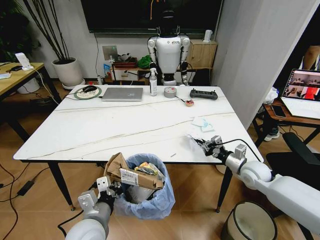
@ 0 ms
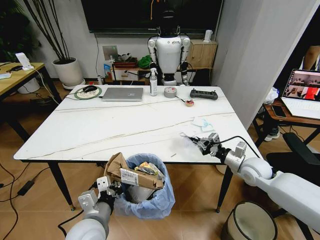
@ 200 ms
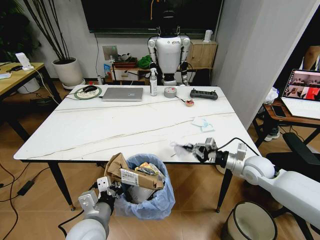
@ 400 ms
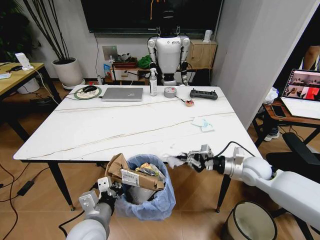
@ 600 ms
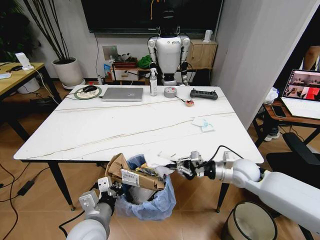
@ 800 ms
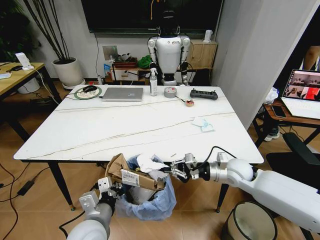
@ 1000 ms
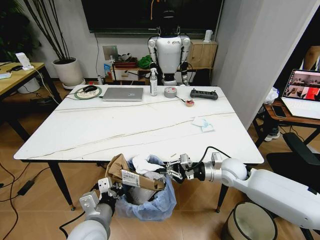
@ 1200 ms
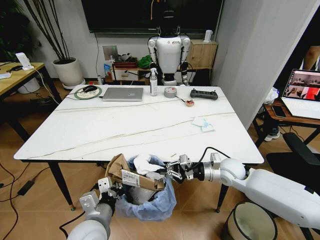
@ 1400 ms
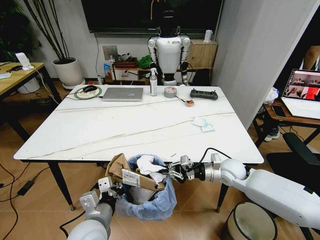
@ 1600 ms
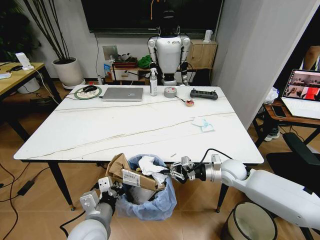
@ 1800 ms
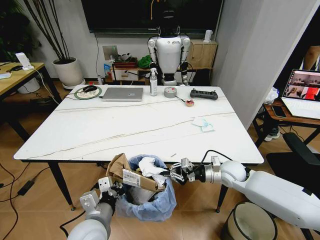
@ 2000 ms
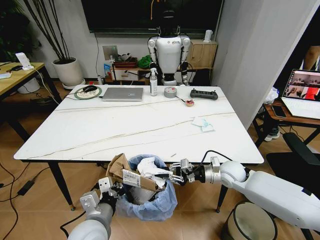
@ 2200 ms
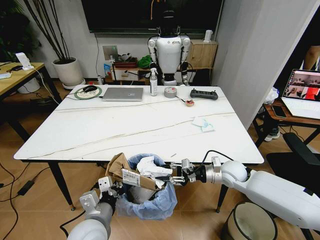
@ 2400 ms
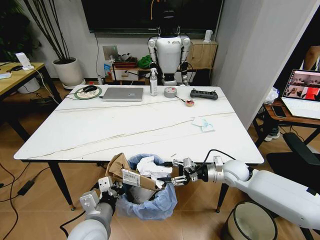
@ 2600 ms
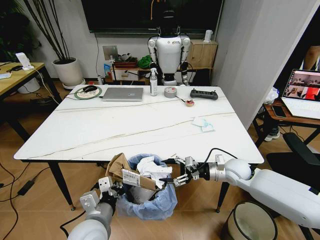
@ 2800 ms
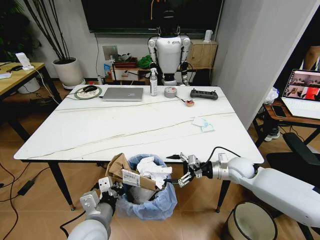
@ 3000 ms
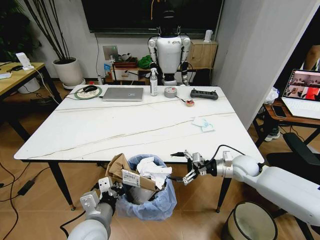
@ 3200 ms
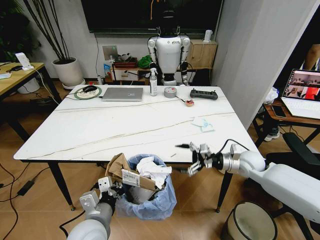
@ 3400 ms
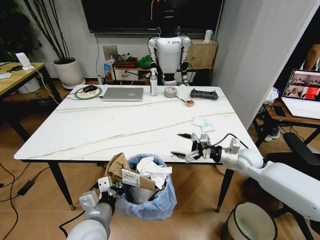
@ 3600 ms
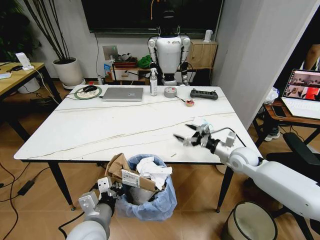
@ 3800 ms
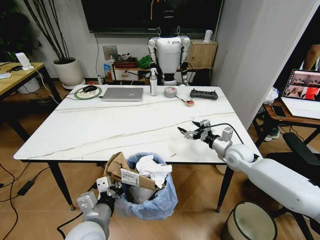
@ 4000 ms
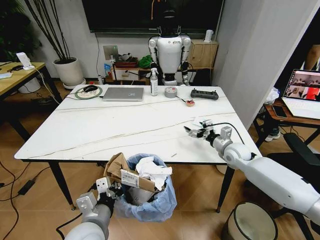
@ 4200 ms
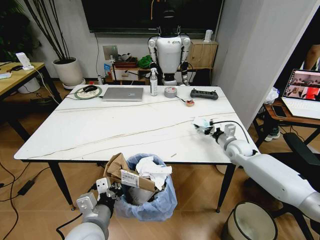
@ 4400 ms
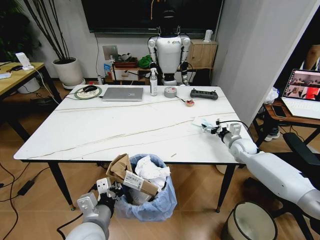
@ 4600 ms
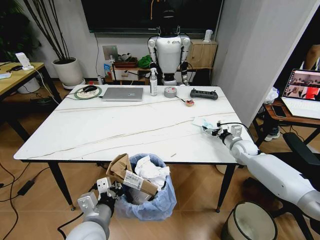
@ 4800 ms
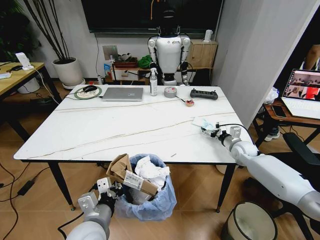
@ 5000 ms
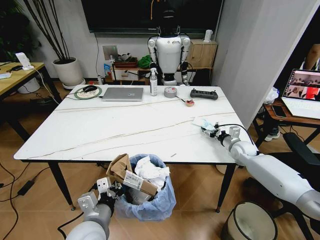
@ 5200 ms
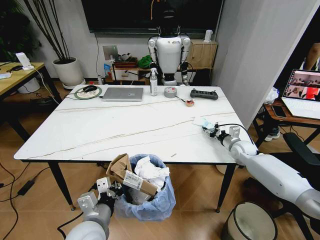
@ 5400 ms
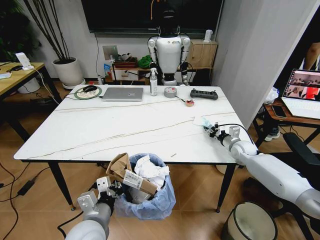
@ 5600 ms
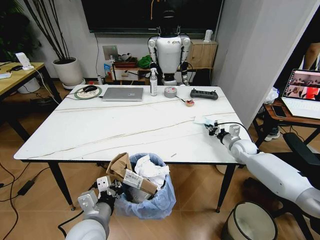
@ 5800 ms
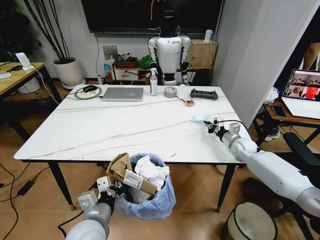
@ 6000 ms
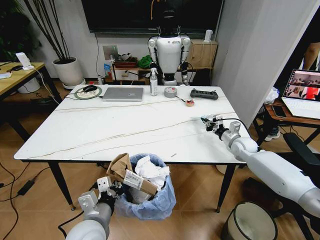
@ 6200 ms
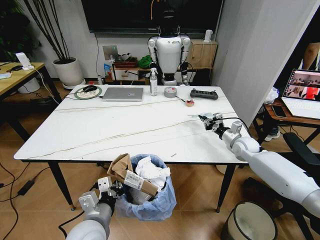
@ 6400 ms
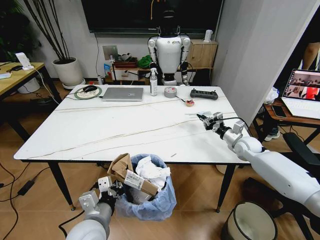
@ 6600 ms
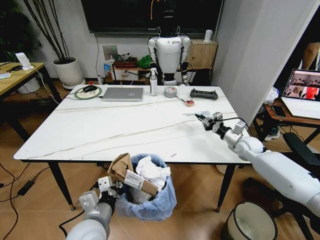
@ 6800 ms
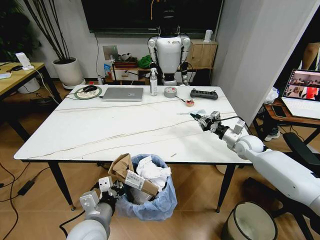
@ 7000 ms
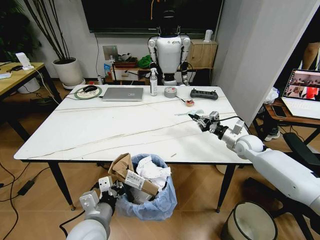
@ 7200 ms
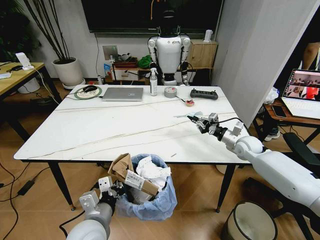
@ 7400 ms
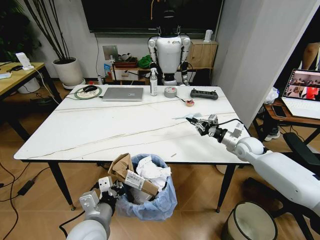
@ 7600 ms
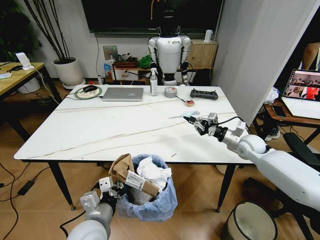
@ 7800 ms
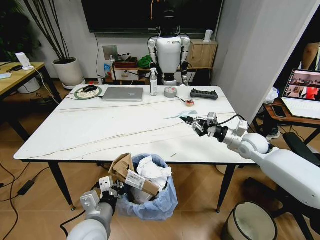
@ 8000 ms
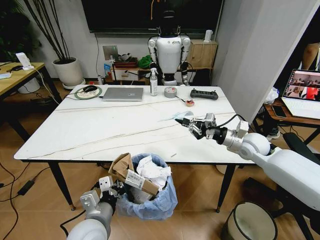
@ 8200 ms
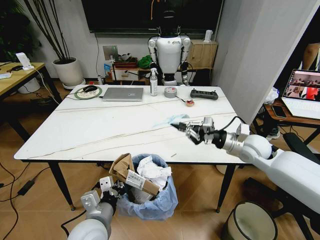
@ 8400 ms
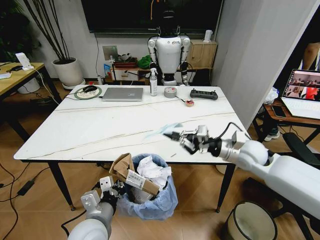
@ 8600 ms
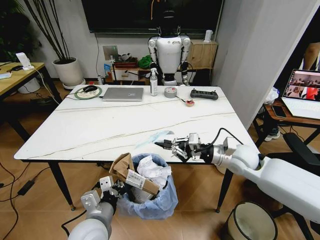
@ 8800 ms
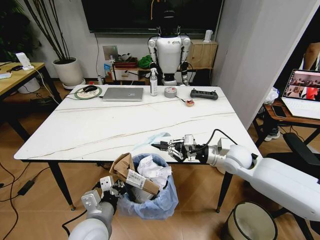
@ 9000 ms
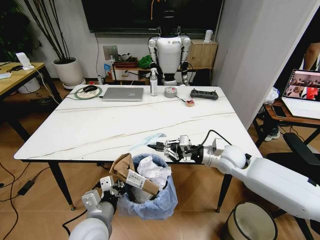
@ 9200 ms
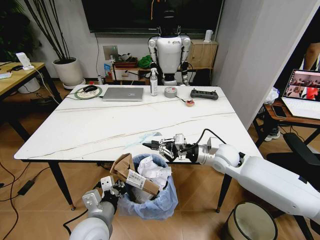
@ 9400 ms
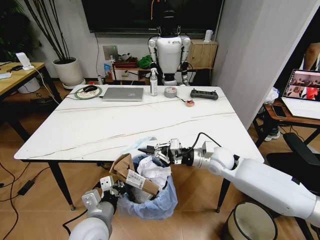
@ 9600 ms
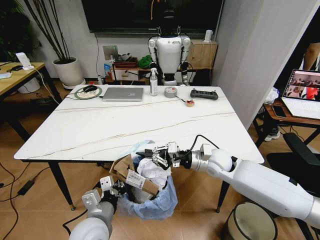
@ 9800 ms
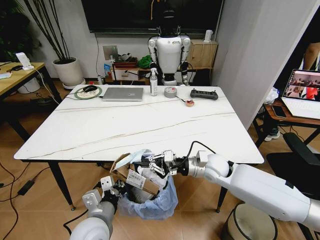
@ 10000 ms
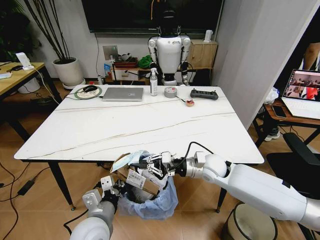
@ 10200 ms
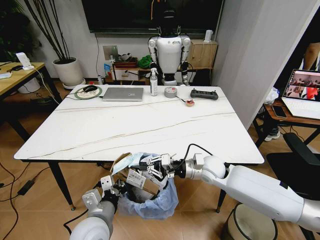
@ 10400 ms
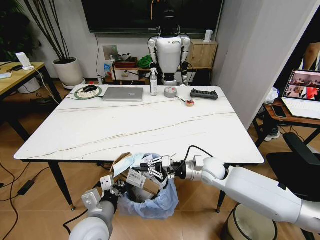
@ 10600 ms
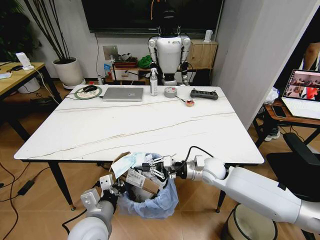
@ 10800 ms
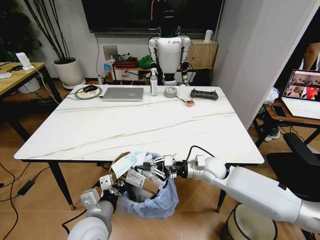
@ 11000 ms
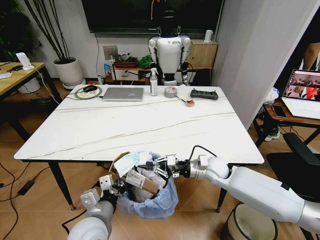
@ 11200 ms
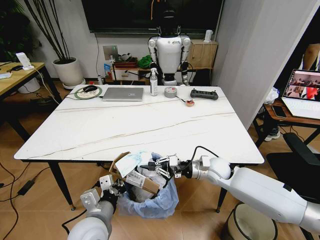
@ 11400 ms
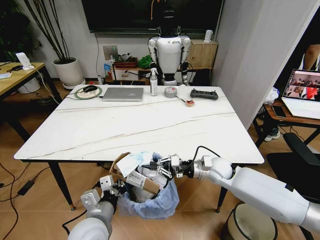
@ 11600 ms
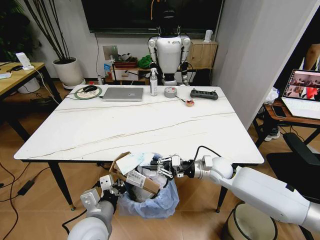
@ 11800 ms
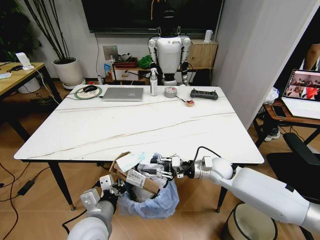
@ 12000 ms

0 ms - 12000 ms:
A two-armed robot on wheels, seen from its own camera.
Task of the whole recording: Pick up the trash bin and place the trash from the table into it.
0 ms - 1600 ms: The right gripper is displaced to the left by about 10 cm.
1600 ms - 3000 ms: The right gripper opens its fingers.
3000 ms - 4400 ms: The right gripper heads forward, covering some 10 cm.
4400 ms - 6000 ms: The right gripper closes its fingers.
7600 ms - 9000 ms: The right gripper shifts some 15 cm to the left, backward and upward.
9000 ms - 10400 ms: The right gripper is displaced to the left and downward by some 10 cm.
10400 ms - 12000 ms: The grippers move only a little.

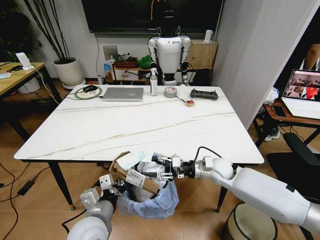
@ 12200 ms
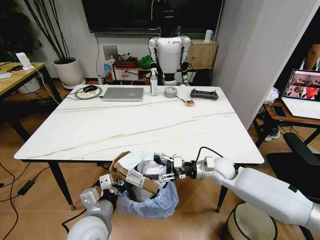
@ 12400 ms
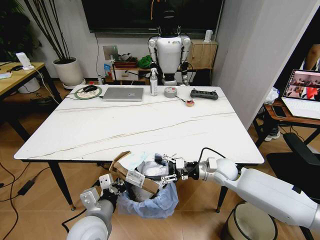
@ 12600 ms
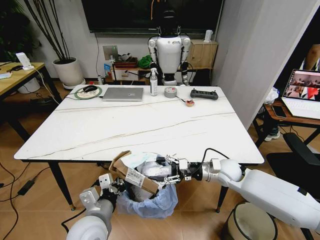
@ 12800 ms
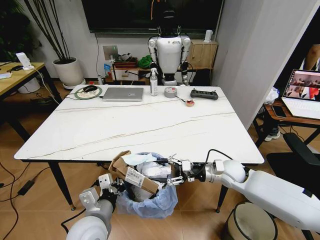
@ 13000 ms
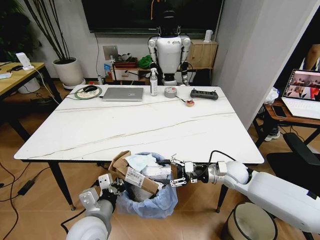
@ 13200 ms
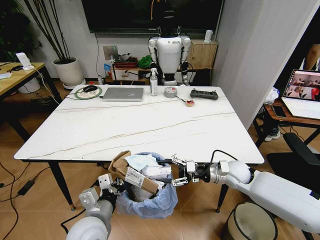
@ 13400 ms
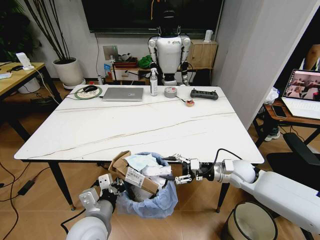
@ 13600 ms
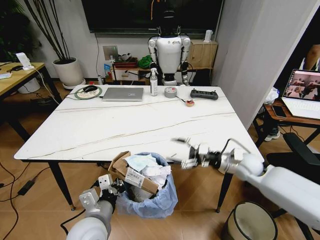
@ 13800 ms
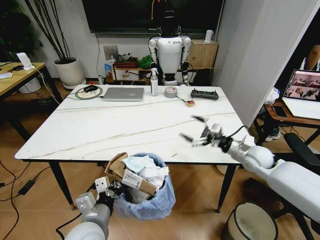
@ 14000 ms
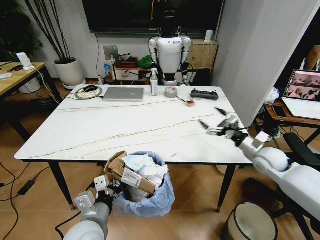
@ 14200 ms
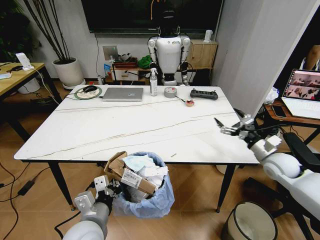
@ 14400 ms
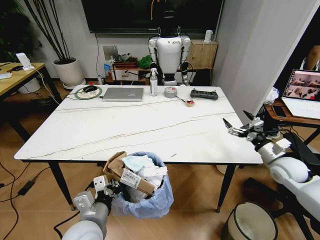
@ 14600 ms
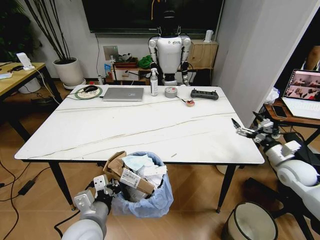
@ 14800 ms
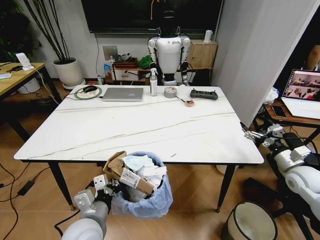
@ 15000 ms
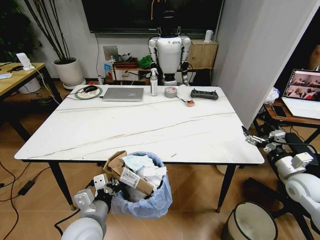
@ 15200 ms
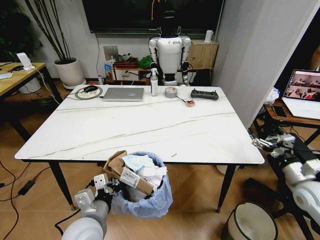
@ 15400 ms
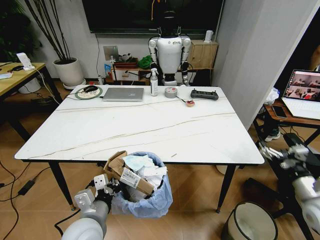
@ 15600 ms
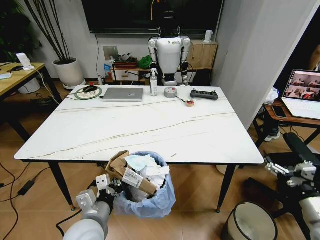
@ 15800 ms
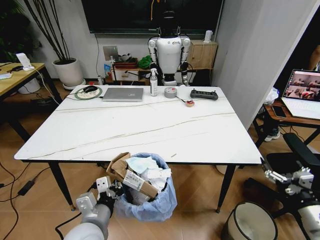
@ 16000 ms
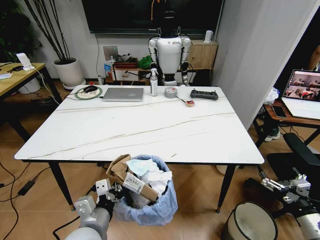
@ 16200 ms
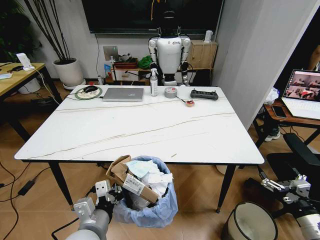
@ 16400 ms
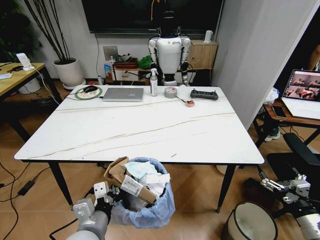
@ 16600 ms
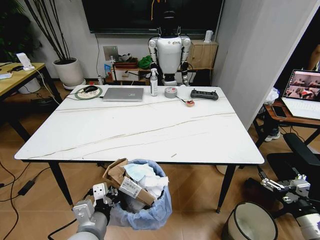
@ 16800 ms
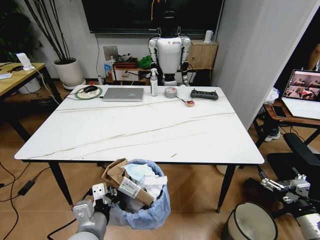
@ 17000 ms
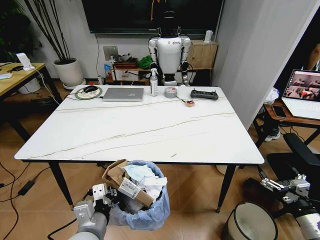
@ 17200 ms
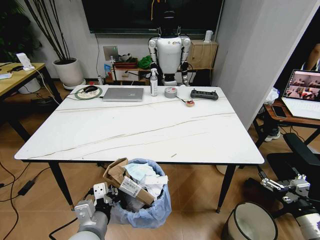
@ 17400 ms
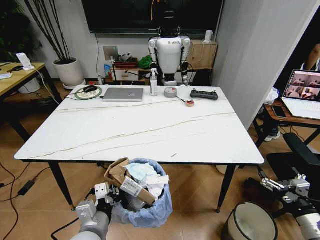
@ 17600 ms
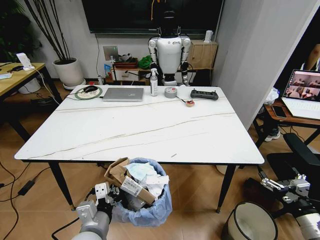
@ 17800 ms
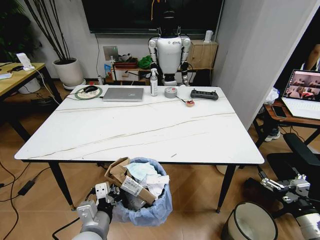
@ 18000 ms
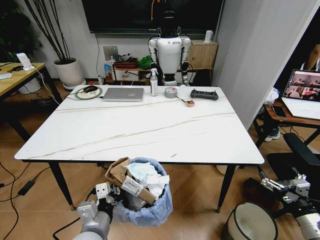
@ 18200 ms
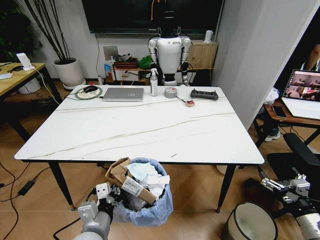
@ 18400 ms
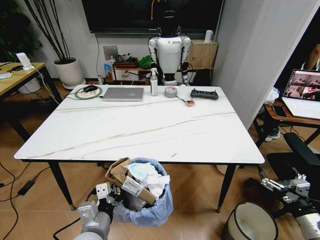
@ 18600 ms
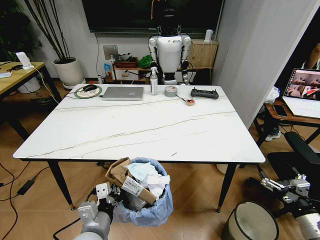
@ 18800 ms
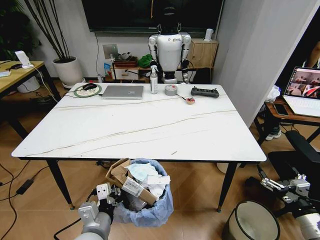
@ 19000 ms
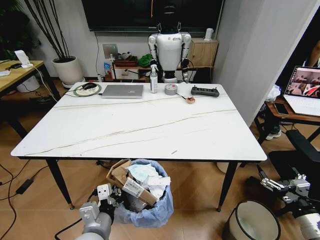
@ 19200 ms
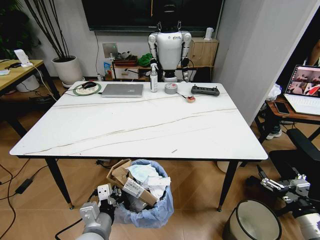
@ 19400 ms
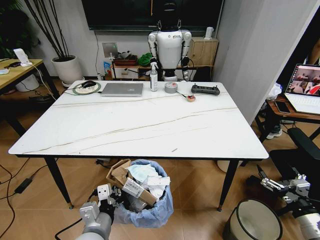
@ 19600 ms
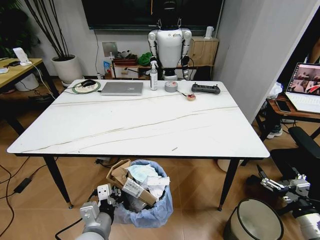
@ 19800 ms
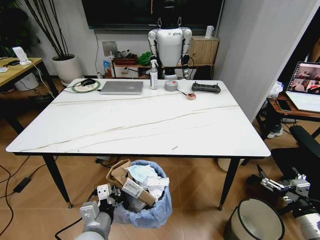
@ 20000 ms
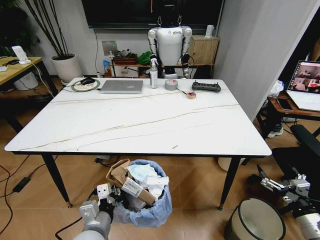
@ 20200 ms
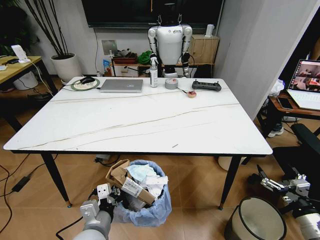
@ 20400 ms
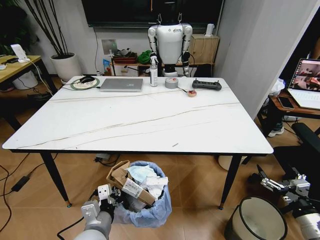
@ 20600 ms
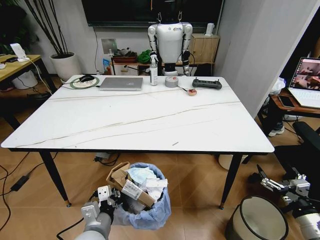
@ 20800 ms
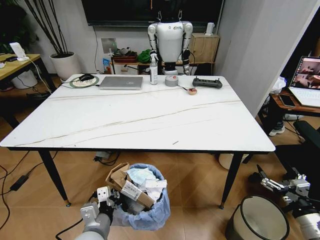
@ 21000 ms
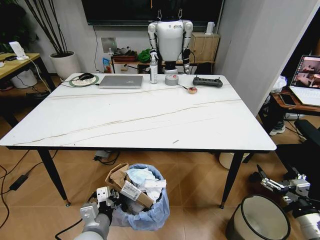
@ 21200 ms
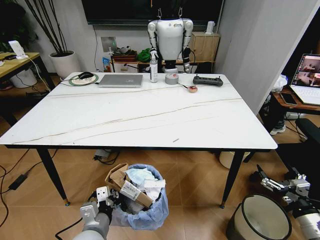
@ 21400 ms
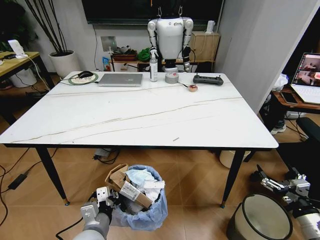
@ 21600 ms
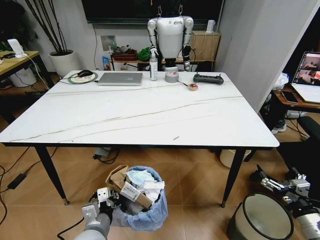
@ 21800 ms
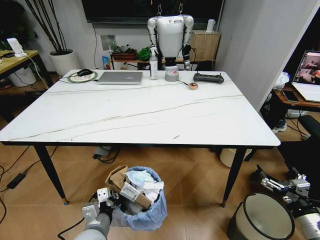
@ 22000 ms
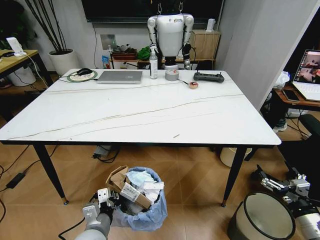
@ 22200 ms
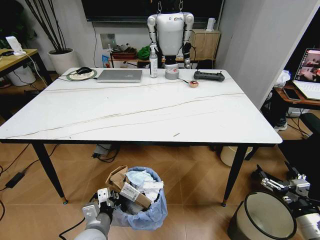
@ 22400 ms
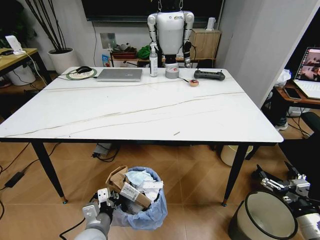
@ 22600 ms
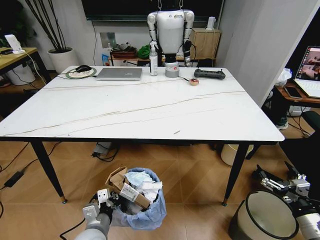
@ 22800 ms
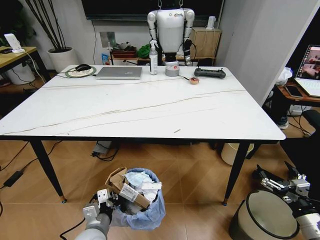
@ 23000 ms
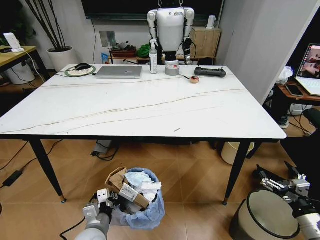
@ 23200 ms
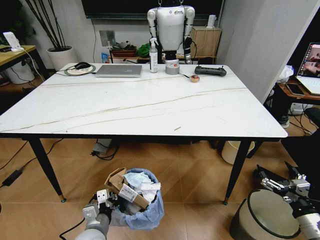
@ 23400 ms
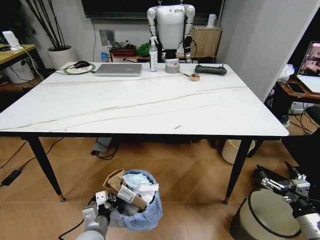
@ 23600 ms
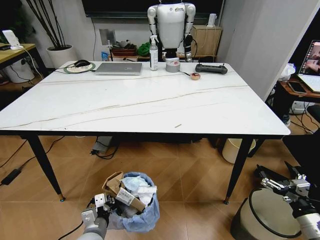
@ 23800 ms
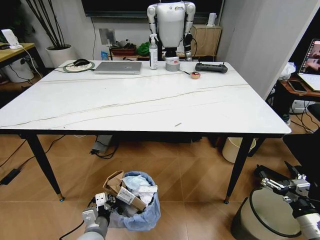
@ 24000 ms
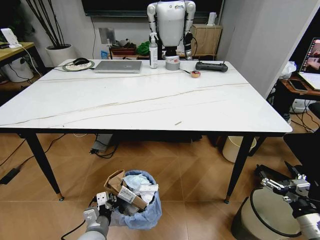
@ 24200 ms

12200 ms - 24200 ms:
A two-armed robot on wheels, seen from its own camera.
Task of the whole recording: Pick up the trash bin and place the trash from the table into it.
12200 ms - 13800 ms: The right gripper goes some 10 cm to the right.
13800 ms - 15200 ms: The right gripper travels to the right and backward by about 20 cm.
15200 ms - 16600 ms: The right gripper moves backward, some 15 cm.
16600 ms - 18200 ms: The grippers stay close to where they were, moving slightly.
22600 ms - 24200 ms: The left gripper heads downward, covering some 5 cm.
